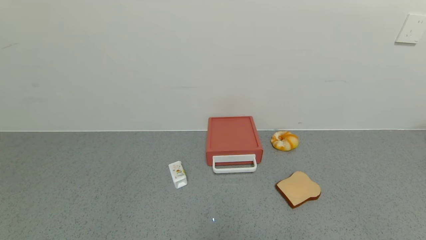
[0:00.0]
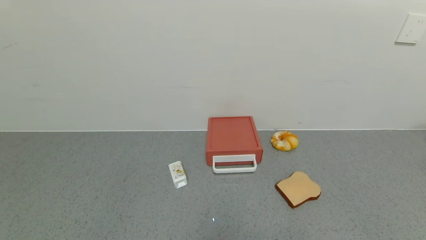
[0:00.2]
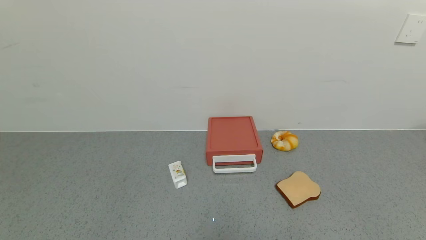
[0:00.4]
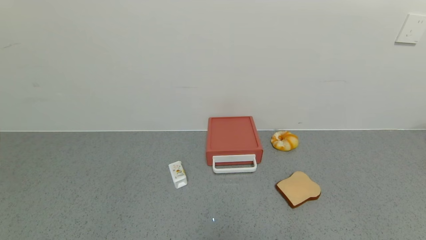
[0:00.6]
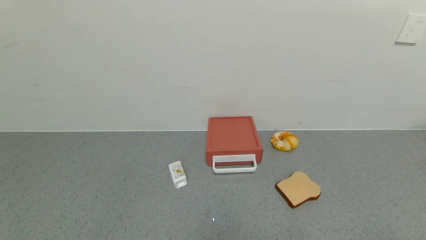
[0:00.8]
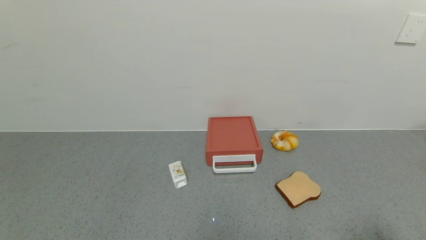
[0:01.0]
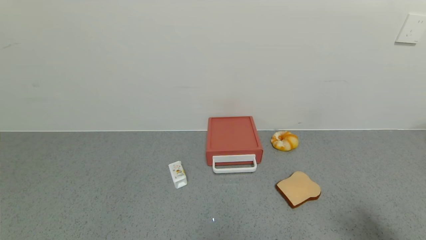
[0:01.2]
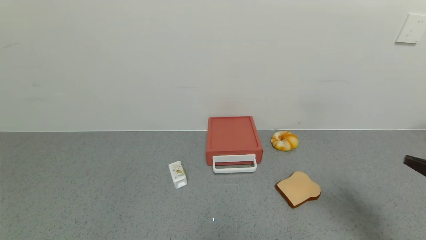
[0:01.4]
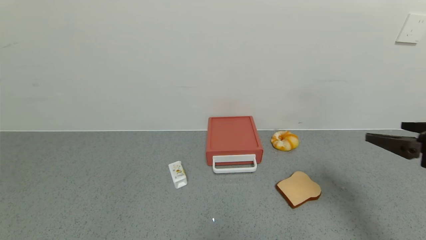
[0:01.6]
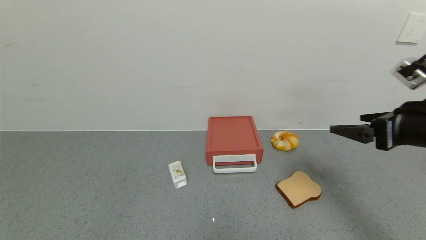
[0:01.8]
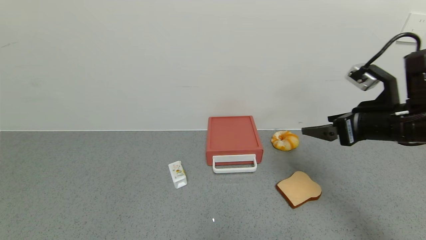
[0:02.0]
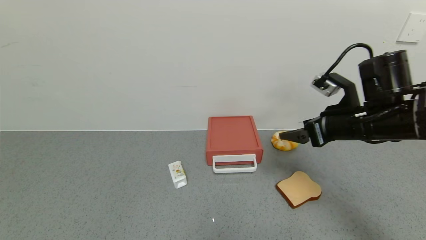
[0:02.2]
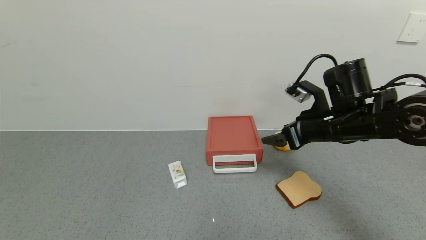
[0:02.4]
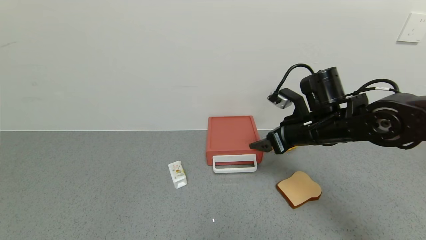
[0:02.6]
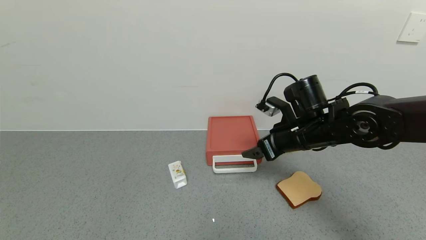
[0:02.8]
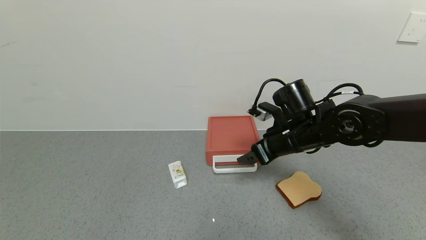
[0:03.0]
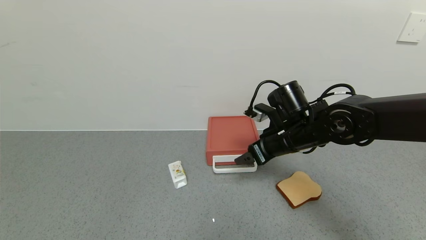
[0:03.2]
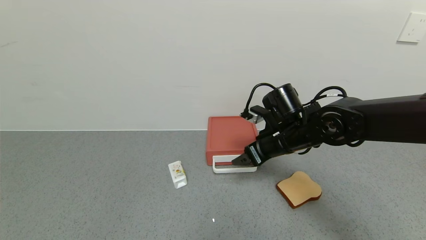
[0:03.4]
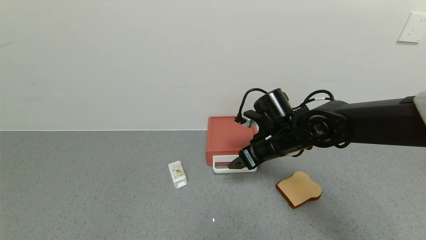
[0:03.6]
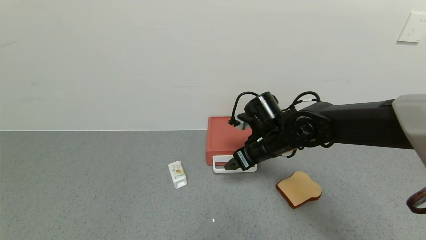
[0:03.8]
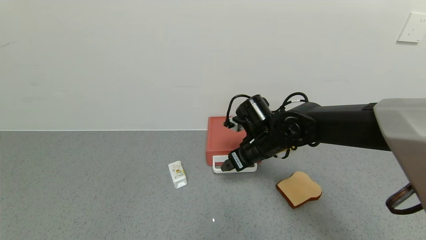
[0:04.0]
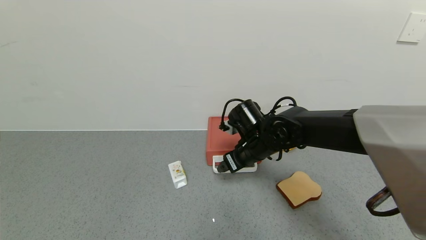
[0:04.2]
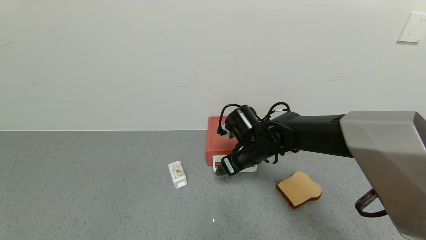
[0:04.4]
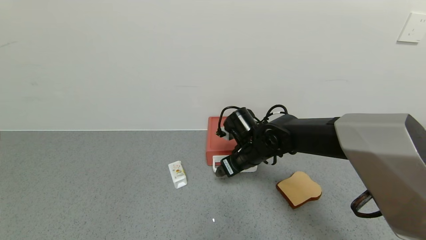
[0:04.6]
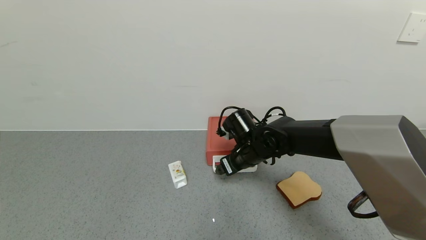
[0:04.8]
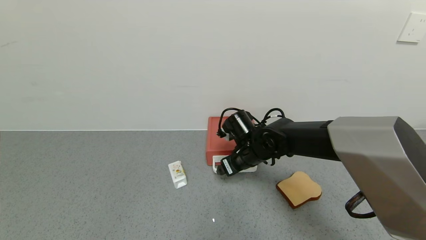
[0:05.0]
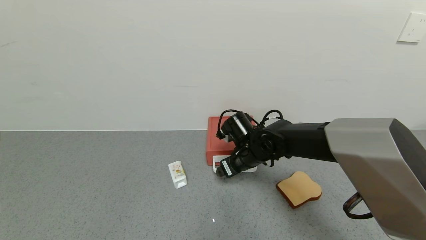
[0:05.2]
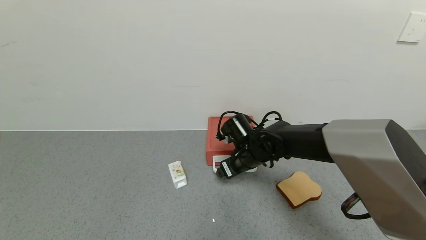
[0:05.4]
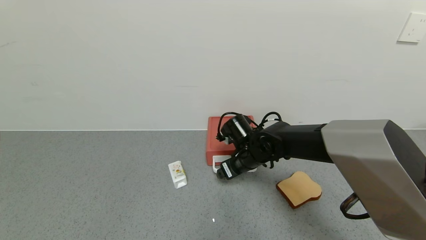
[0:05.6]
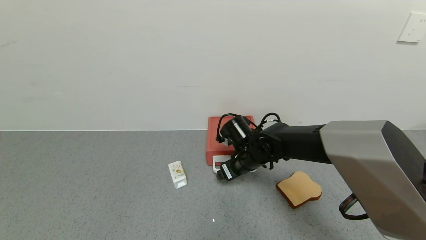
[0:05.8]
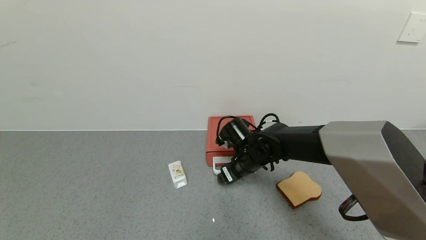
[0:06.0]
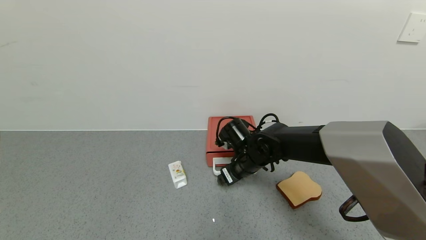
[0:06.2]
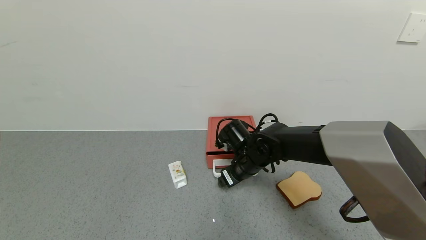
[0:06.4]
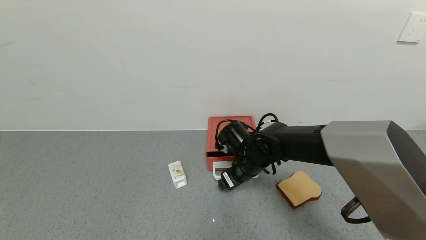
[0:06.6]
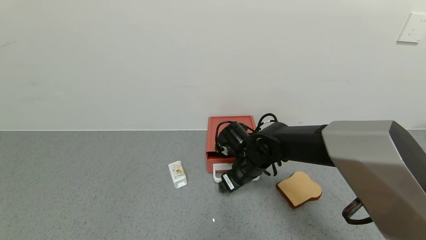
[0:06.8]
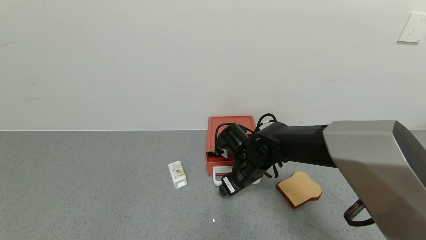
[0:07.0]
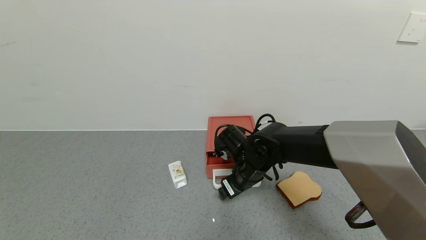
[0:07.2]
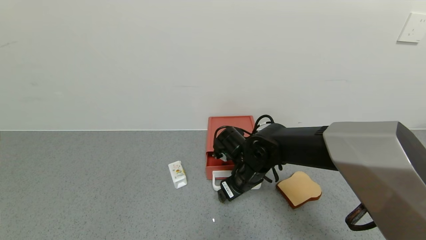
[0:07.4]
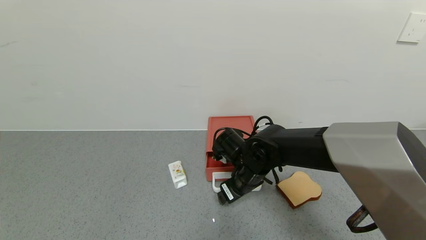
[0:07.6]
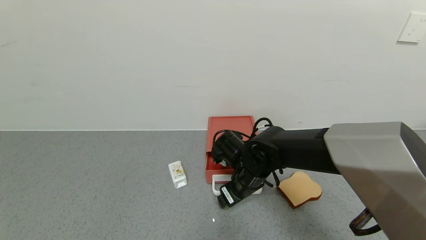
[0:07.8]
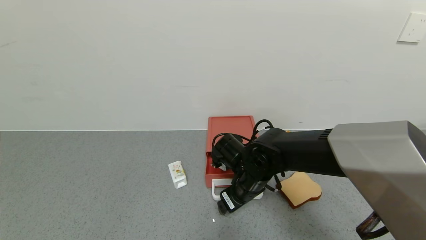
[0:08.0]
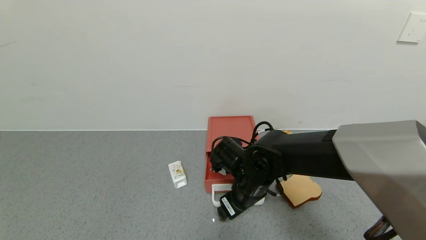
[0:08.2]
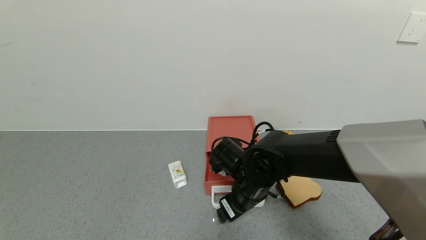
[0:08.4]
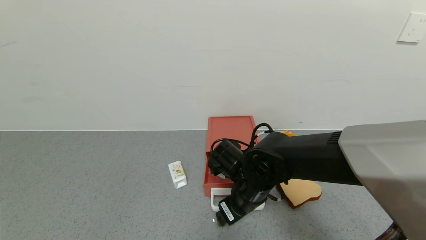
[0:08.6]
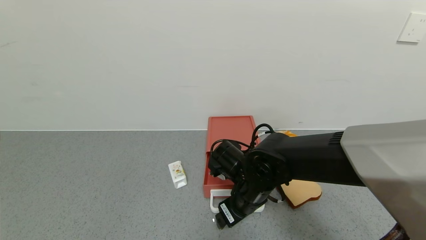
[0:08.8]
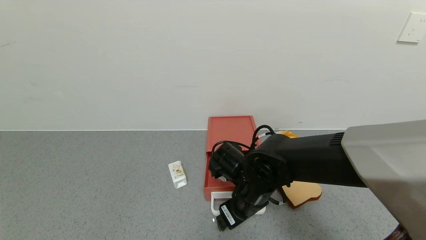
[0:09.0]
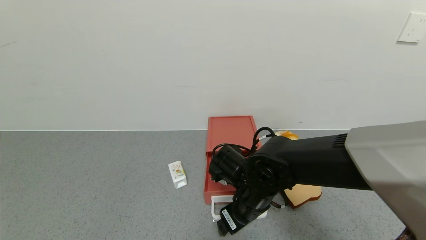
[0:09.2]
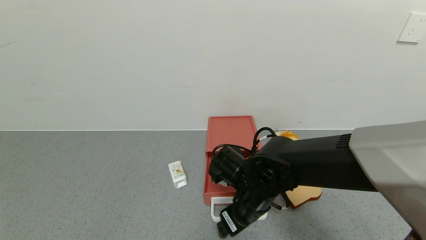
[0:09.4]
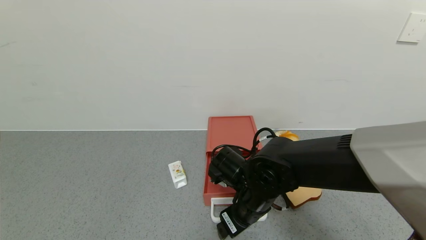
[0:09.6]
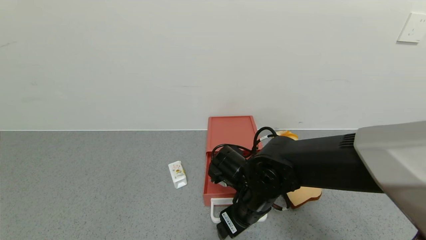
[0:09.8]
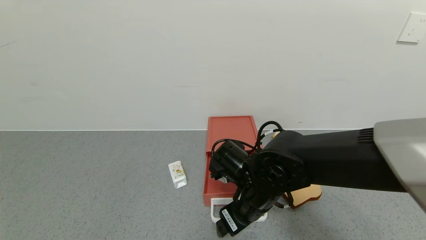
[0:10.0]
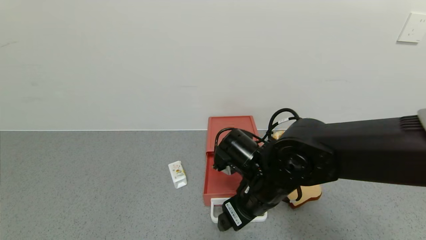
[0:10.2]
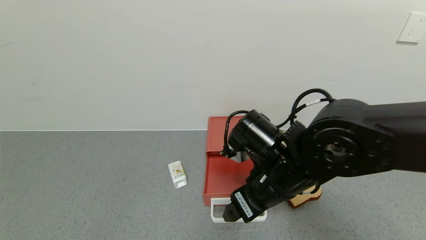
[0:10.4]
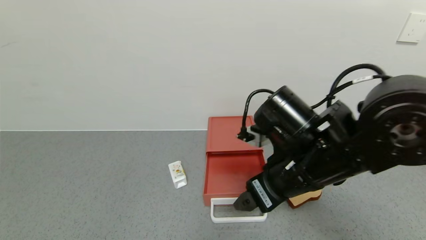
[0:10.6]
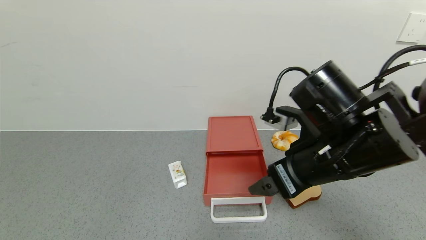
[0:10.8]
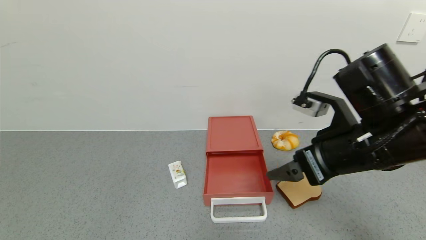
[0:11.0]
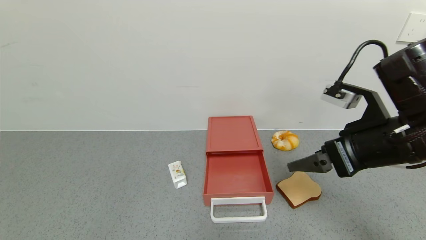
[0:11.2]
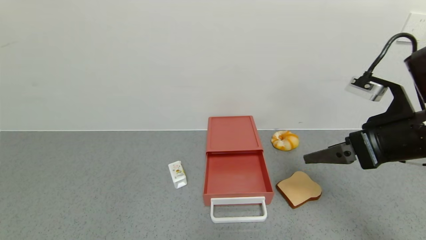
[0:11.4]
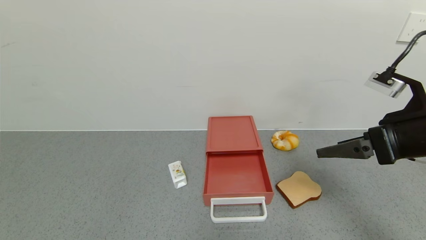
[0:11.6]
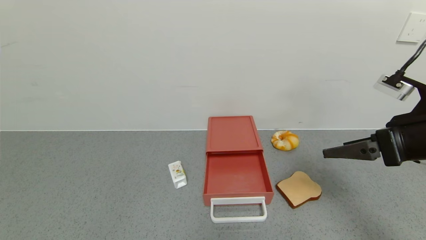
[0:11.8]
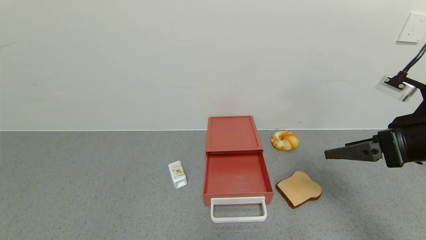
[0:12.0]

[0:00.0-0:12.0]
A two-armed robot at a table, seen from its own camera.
Task of the whole recording: use the gripper to open the drawer and close the red drawer.
Step, 0:00.0 to 0:10.4: Open the red drawer with the right gripper.
0:00.0 to 0:01.6: The right gripper is displaced forward and upward by about 30 cm.
0:01.6 to 0:03.0: The right gripper shifts roughly 25 cm to the left, forward and downward.
0:03.0 to 0:04.4: The right gripper is displaced to the left and downward by about 10 cm.
0:04.4 to 0:07.6: The grippers move only a little.
0:07.6 to 0:09.0: There are only small adjustments of the grippers.
0:09.0 to 0:10.4: The right gripper goes approximately 10 cm upward.
0:10.4 to 0:12.0: The right gripper shifts about 20 cm to the right.

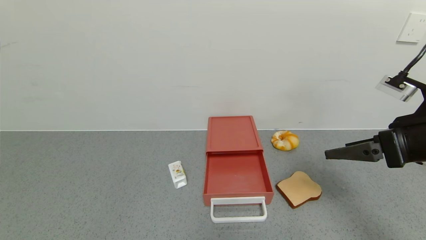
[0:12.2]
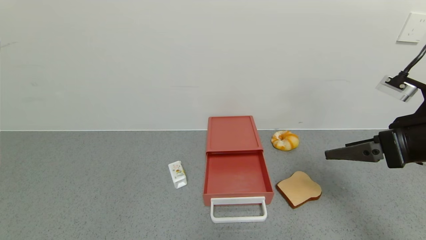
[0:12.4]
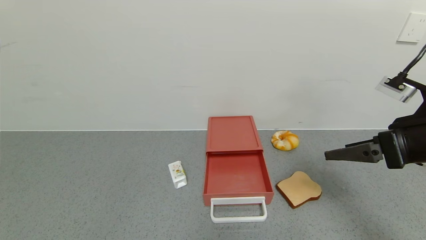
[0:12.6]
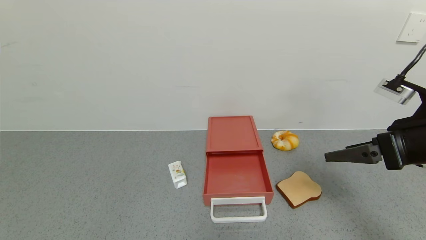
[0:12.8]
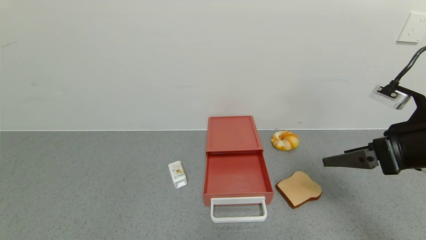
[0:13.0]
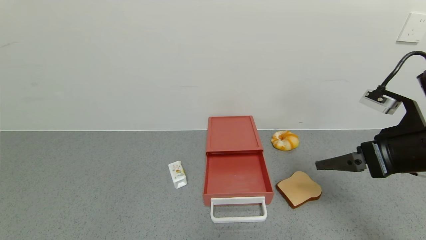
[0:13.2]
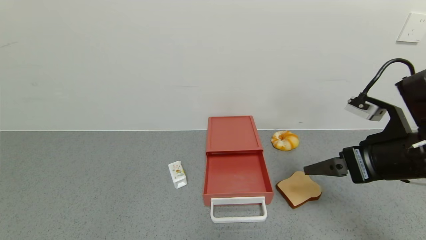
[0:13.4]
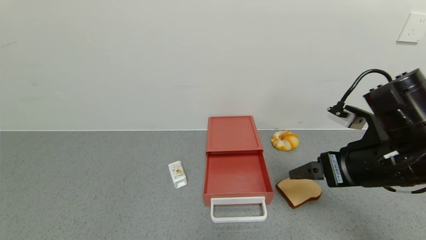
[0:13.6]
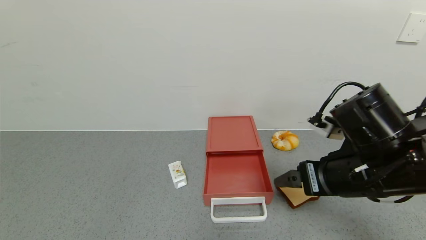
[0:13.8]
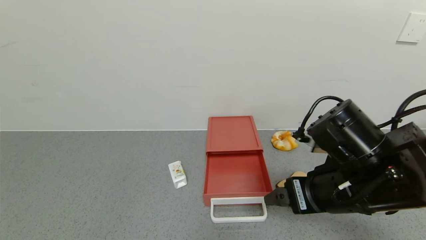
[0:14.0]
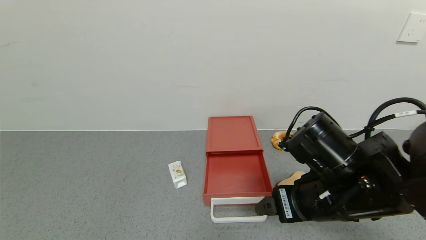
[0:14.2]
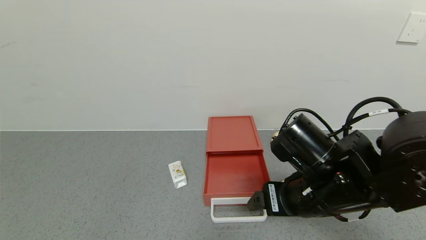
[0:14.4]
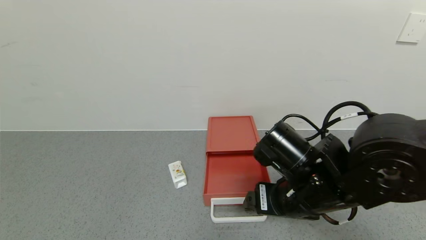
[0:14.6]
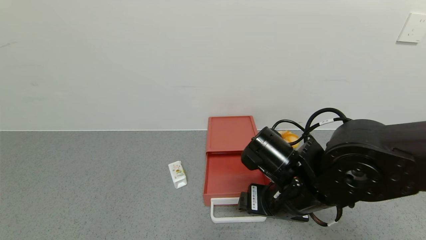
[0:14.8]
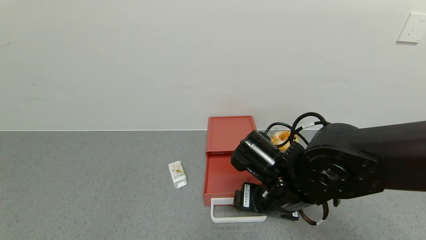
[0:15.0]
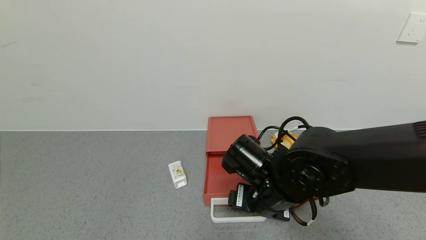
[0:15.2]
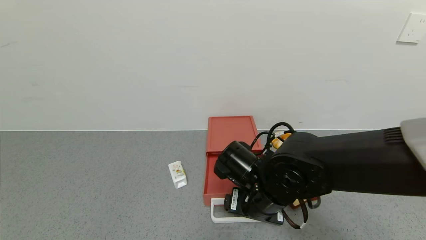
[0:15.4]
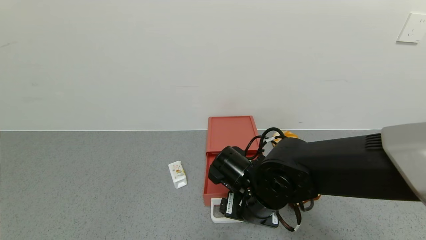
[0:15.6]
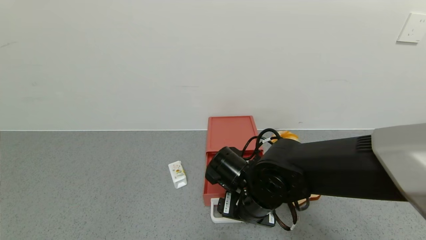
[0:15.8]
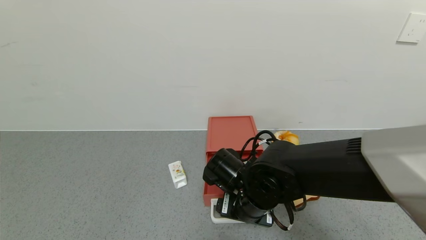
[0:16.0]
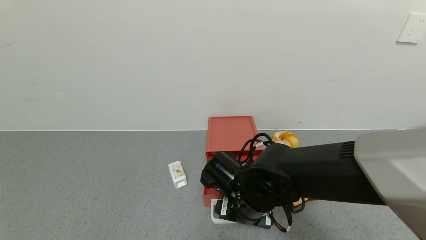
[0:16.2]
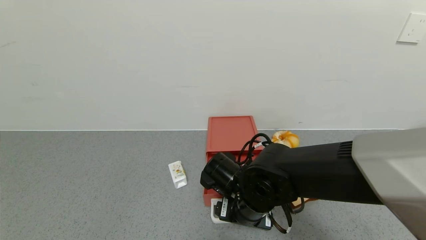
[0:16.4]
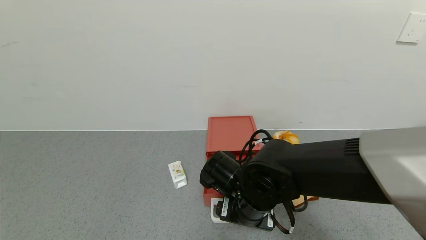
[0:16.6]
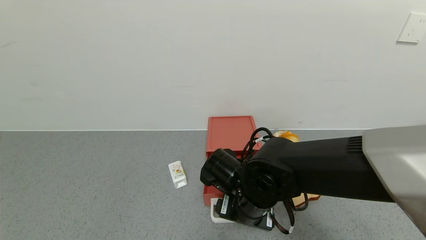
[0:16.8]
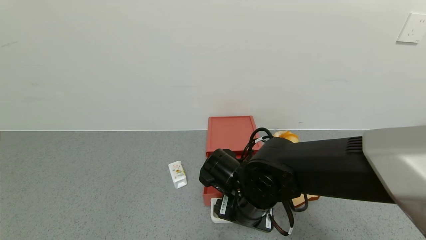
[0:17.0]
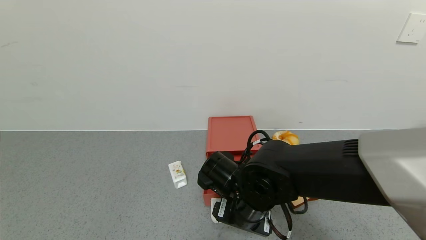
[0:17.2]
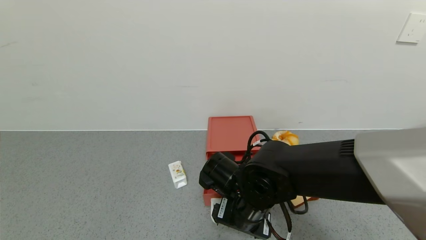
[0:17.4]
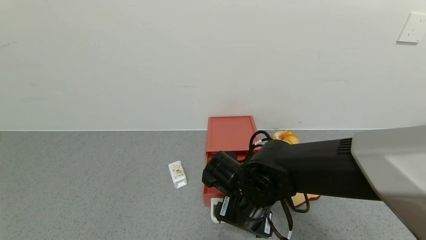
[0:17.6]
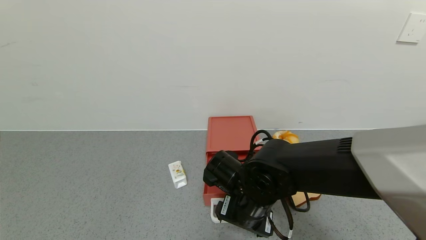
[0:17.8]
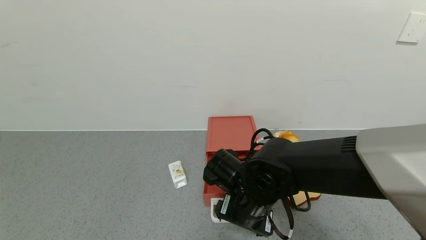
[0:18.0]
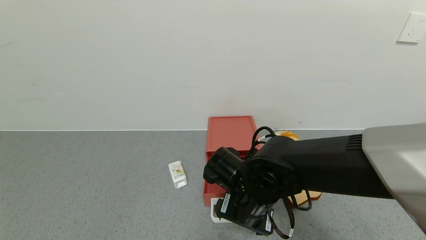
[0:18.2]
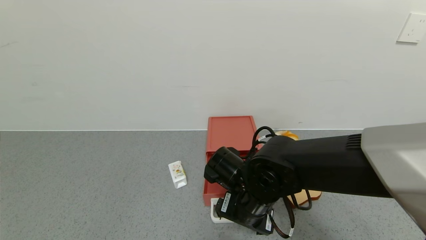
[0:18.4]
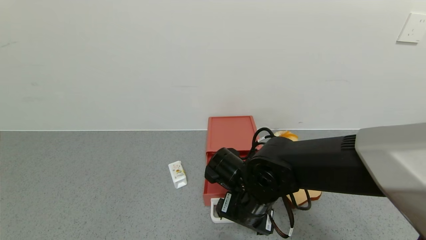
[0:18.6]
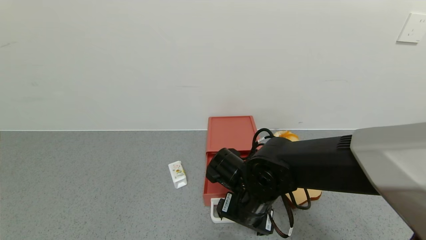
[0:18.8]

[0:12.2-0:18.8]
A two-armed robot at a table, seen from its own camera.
Task of the whole recording: use the gripper to open the drawer and close the red drawer.
0:12.2 to 0:13.8: The right gripper heads to the left, covering about 10 cm.
0:13.8 to 0:15.4: The right gripper heads to the left and downward, covering roughly 15 cm.
0:15.4 to 0:18.8: The grippers move only a little.
